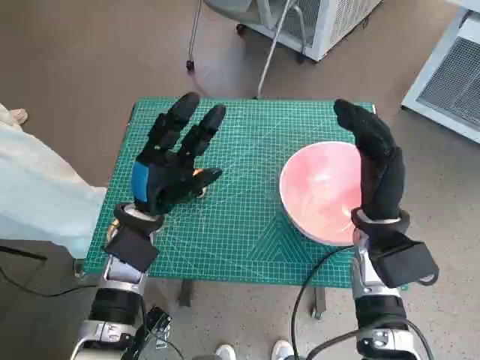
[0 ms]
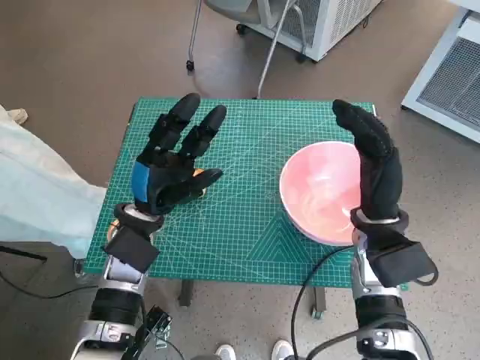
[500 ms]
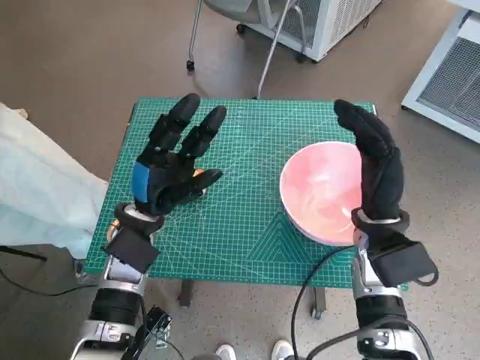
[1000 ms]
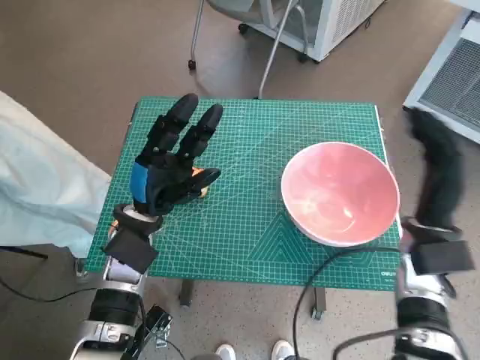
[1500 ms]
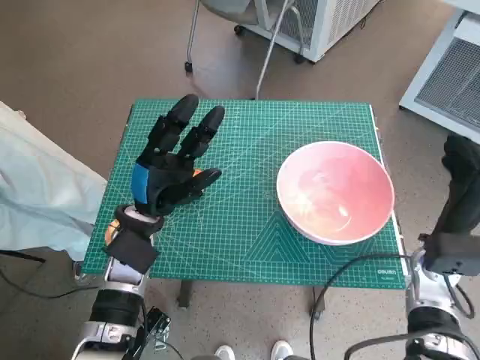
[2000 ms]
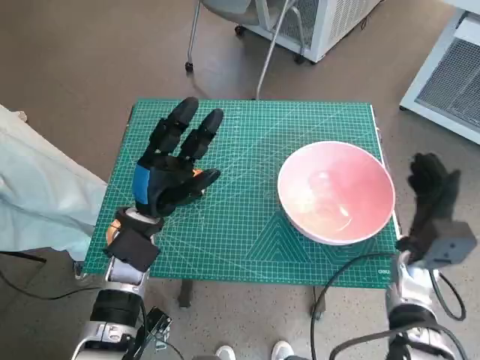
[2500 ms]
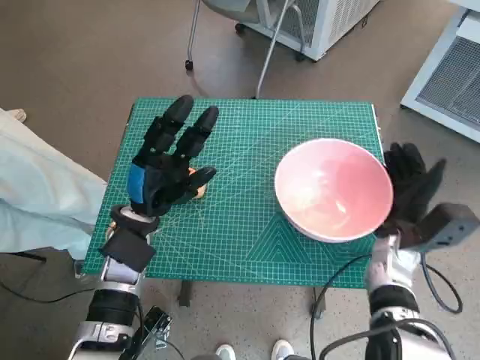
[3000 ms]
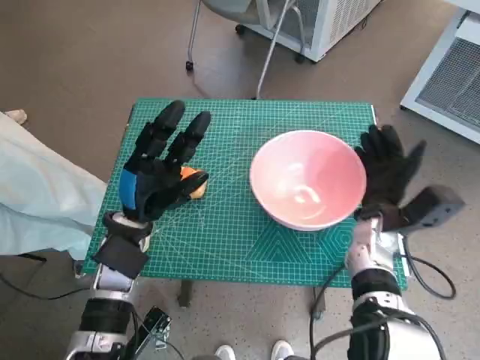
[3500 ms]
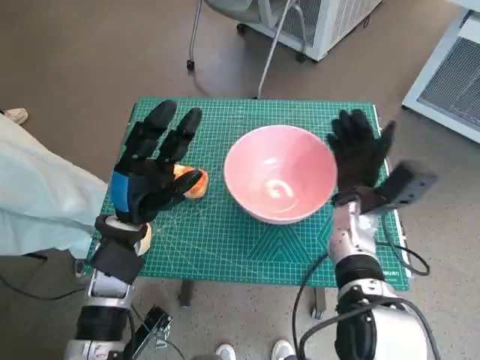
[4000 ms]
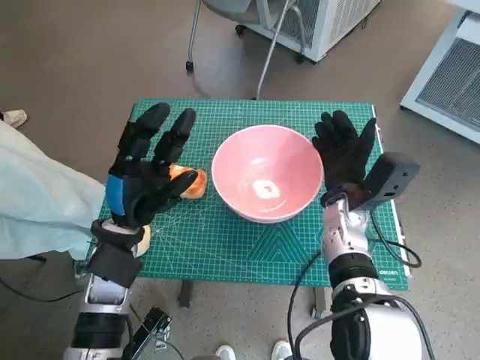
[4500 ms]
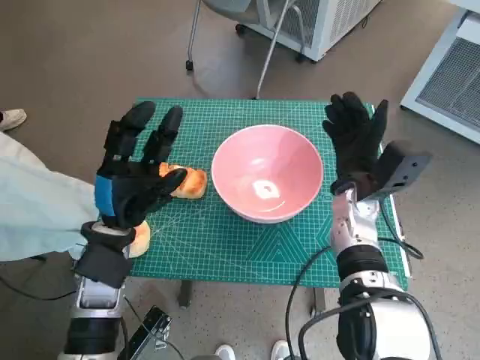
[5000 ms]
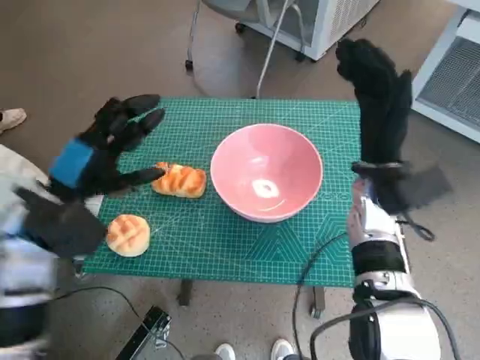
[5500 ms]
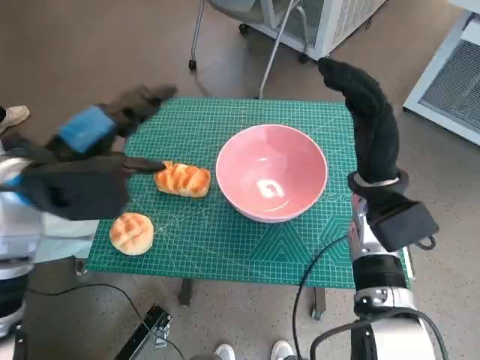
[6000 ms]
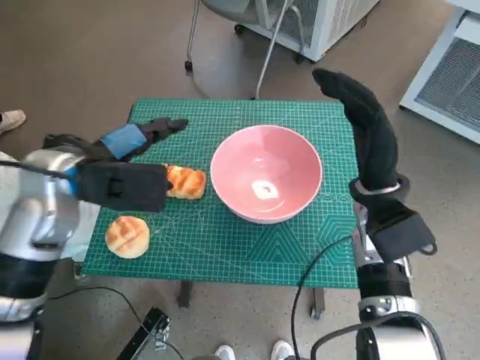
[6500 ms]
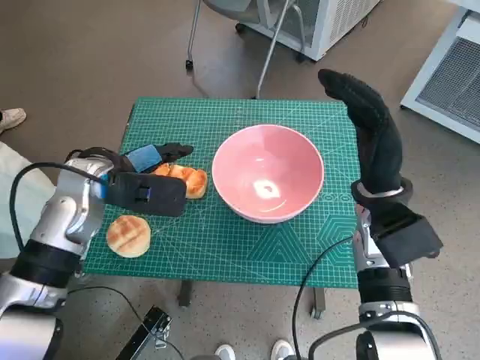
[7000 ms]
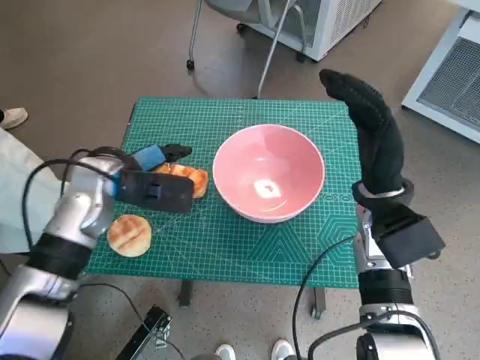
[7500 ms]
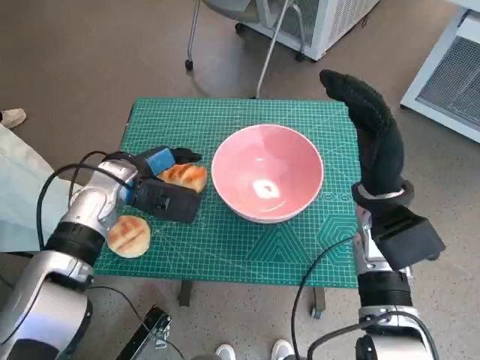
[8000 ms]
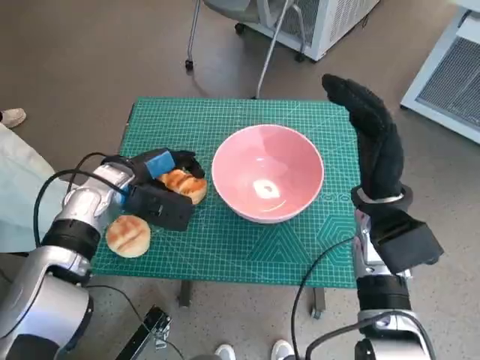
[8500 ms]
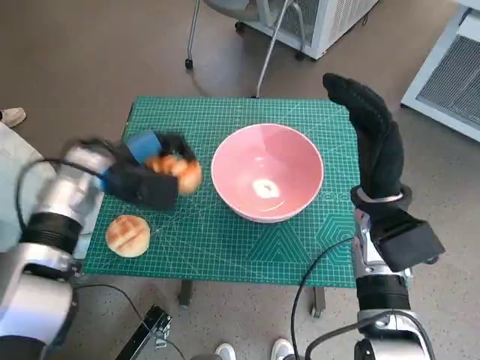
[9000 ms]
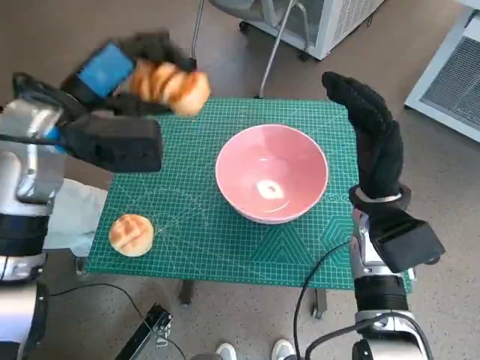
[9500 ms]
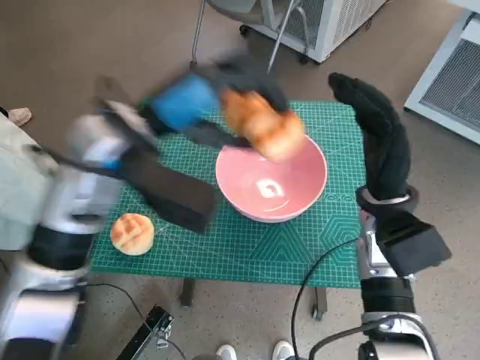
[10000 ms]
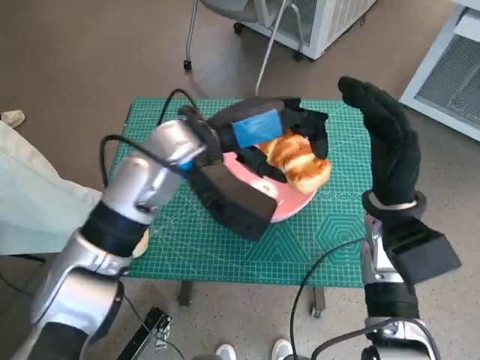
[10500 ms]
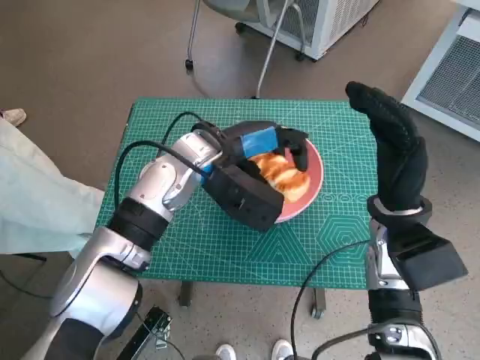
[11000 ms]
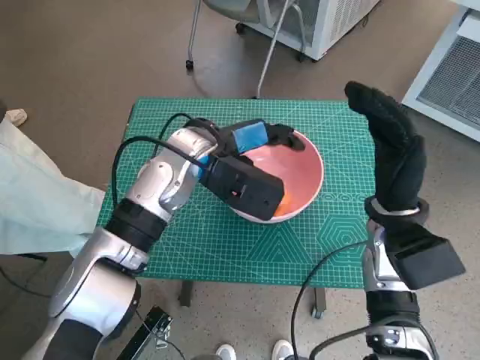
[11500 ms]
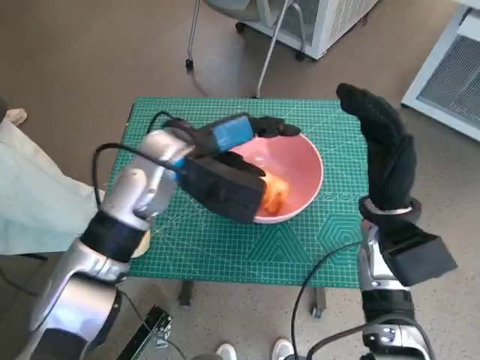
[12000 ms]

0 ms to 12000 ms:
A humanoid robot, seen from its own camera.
Task of the whole recording: Push the bowl to the center of the table and put the bread into the bowl.
Step, 0 ms to 5000 ms: Move the pink bowl to the center of table with right hand.
Step, 5500 ms to 8000 ms: Grasp the long bread with left hand.
Step, 8500 ms to 11500 ms: Place the long bread in pink bowl with left hand.
2000 ms to 4000 ms: The right hand moves to the left and forward, approximately 10 cm.
4000 ms to 6000 ms: The right hand shifts approximately 5 cm upward. The left hand is displaced upward by about 15 cm.
6000 ms to 8000 ms: The left hand heads downward and forward, covering about 15 cm.
8000 ms to 10000 ms: The left hand heads upward, covering roughly 15 cm.
10000 ms to 12000 ms: The left hand goes about 10 cm downward and to the right.

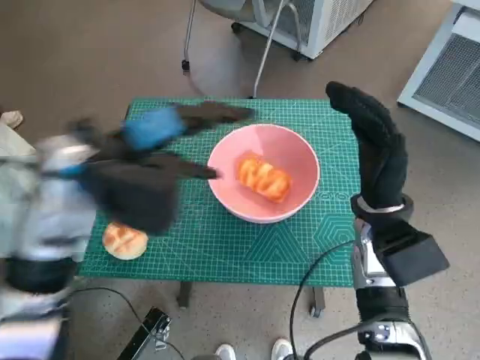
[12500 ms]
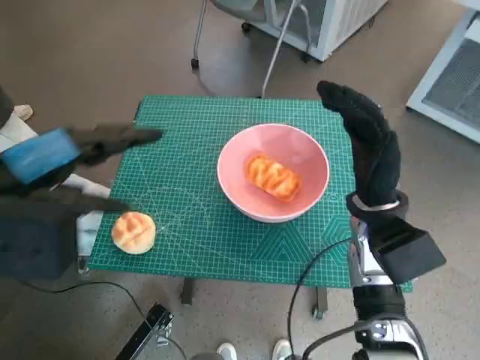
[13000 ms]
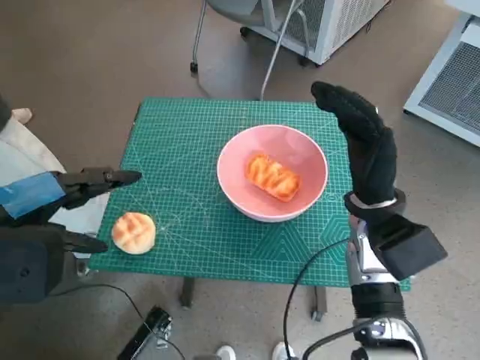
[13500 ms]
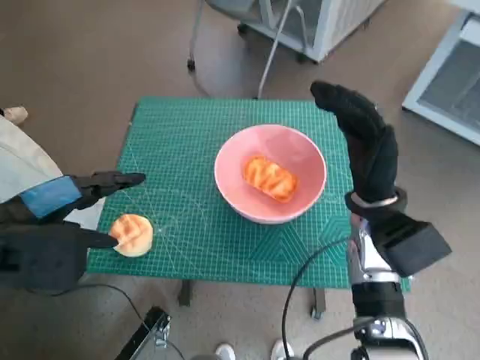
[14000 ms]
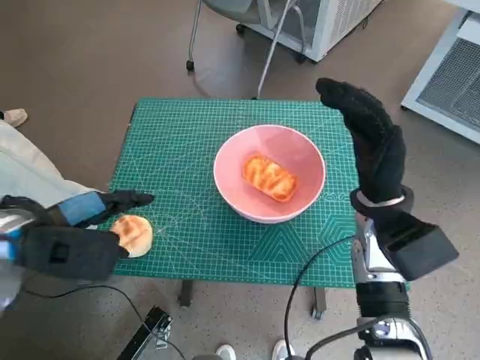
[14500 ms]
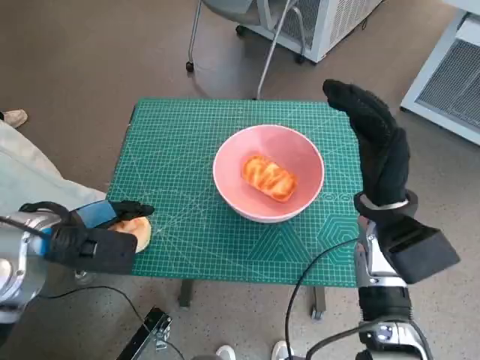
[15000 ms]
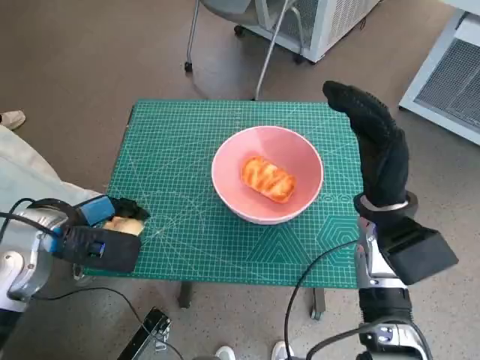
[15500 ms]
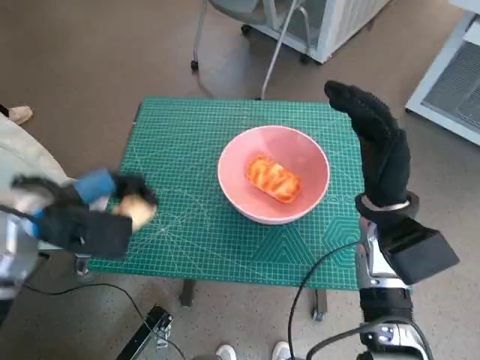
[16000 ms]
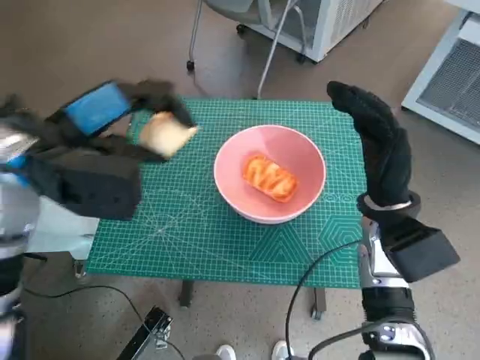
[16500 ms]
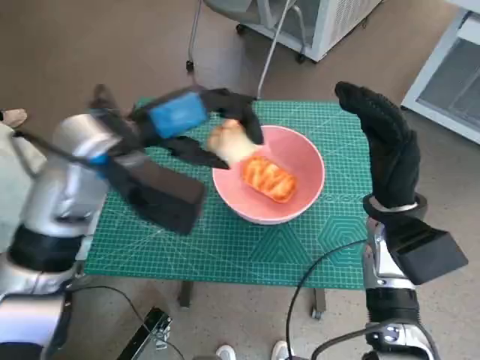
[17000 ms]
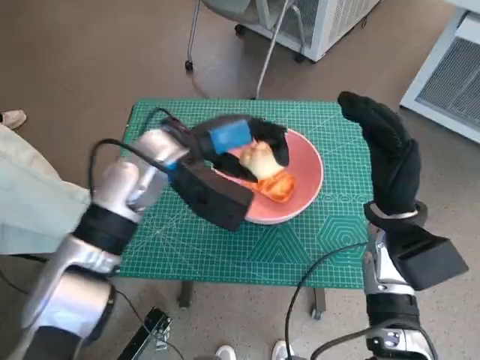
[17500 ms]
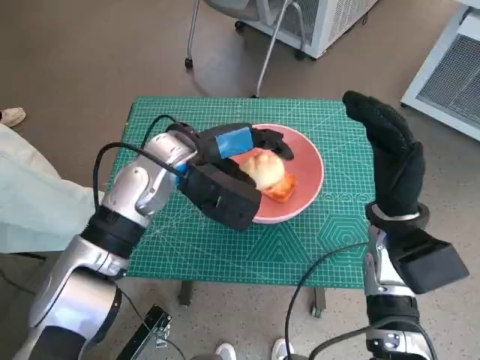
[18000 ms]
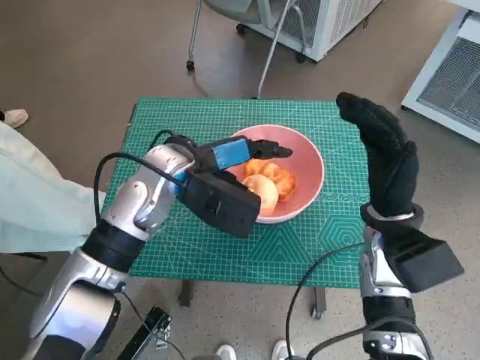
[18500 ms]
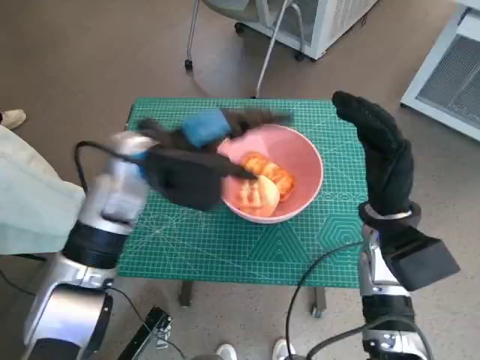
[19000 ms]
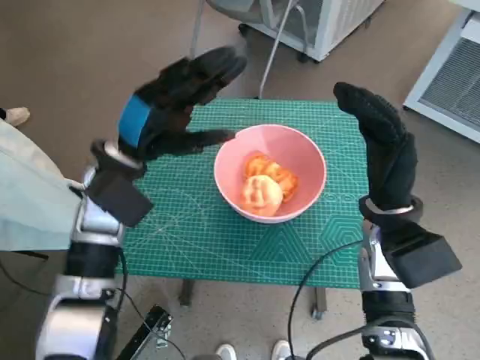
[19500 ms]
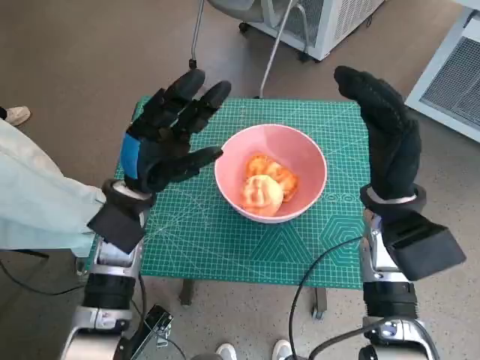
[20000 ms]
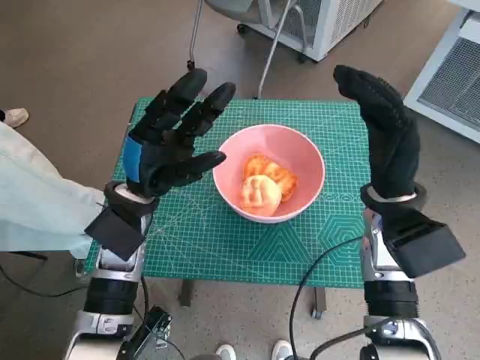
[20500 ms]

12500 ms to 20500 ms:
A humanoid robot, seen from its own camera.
Task of the whole recording: Push the bowl to the center of the table and put the bread into the bowl.
Step, 12500 ms to 15000 ms: Grasp the round bread with left hand.
Step, 15500 ms to 18500 ms: Place the round bread in pink bowl with left hand.
12500 ms to 14500 ms: The left hand is displaced to the left and backward by some 10 cm.
14500 ms to 16500 ms: The left hand shifts approximately 5 cm upward.
16500 ms to 18500 ms: The left hand heads to the right, downward and forward, covering about 15 cm.
18500 ms to 20500 ms: The left hand shifts about 5 cm to the left.

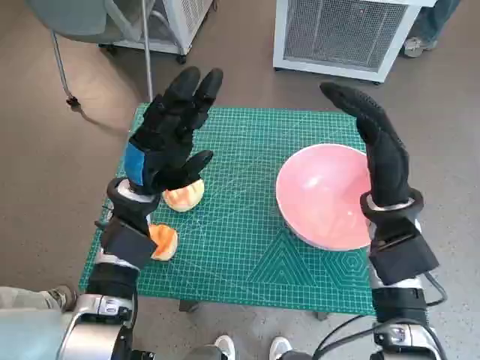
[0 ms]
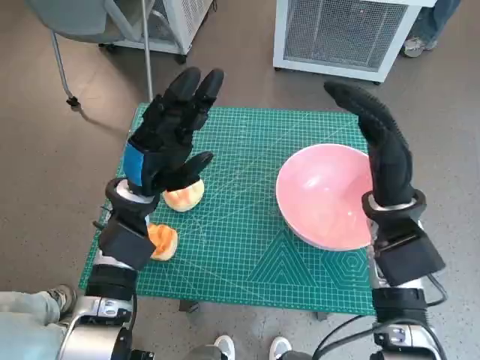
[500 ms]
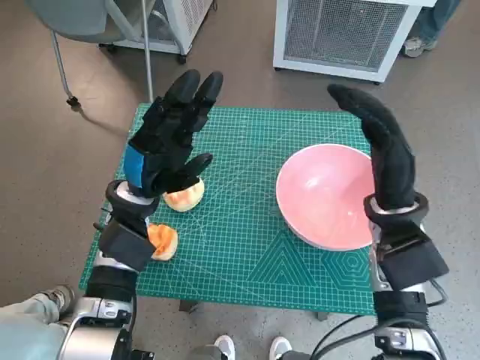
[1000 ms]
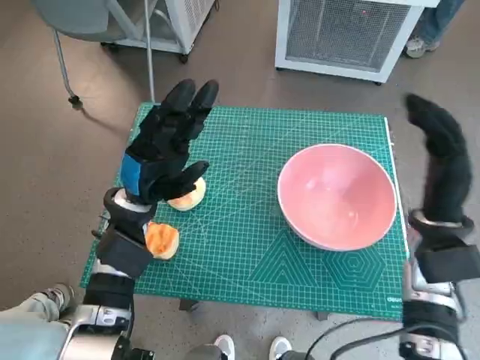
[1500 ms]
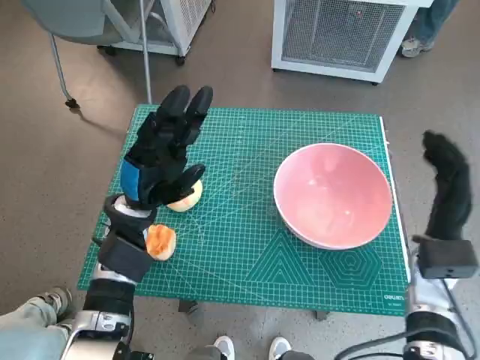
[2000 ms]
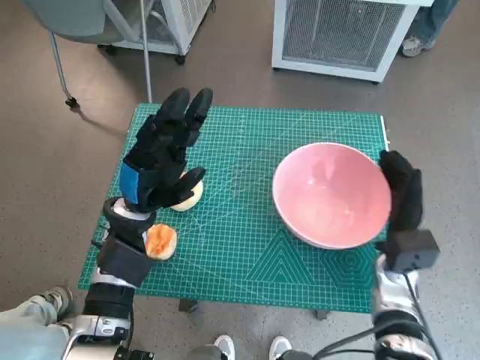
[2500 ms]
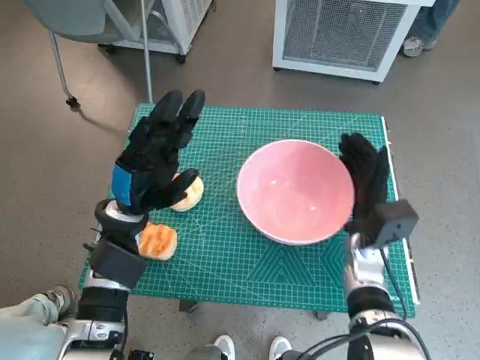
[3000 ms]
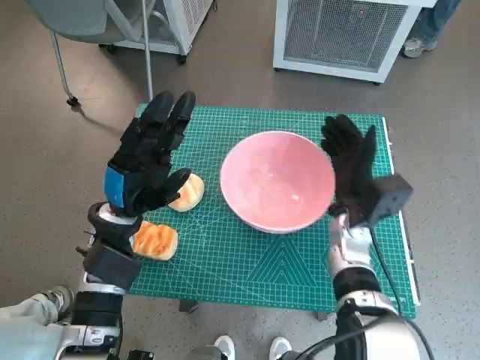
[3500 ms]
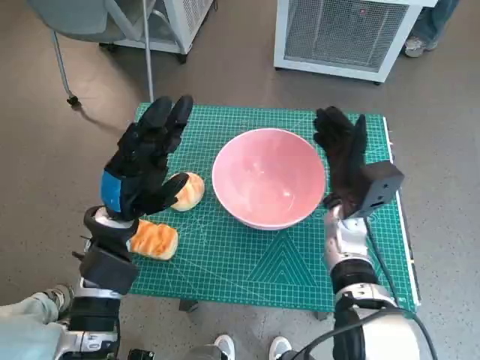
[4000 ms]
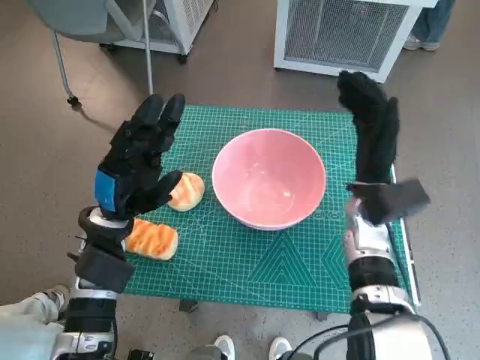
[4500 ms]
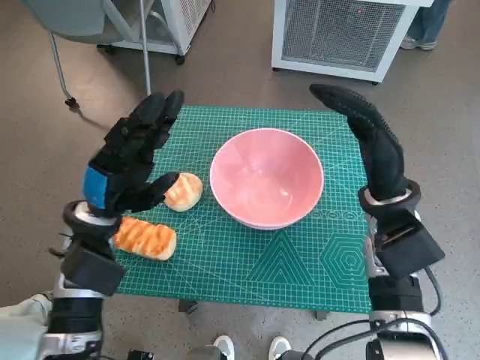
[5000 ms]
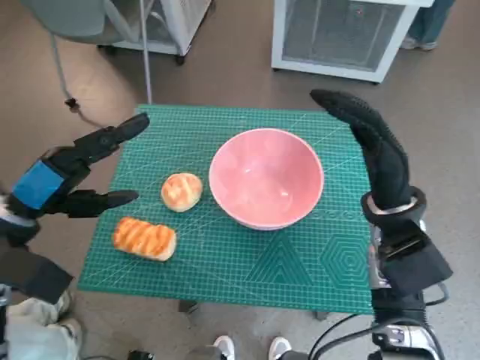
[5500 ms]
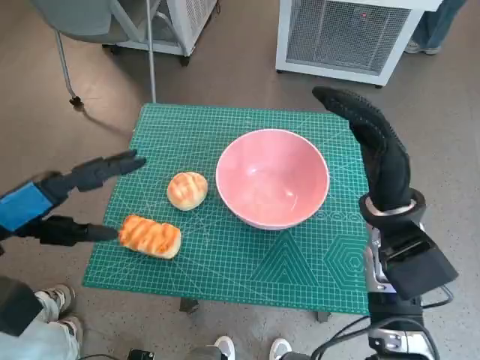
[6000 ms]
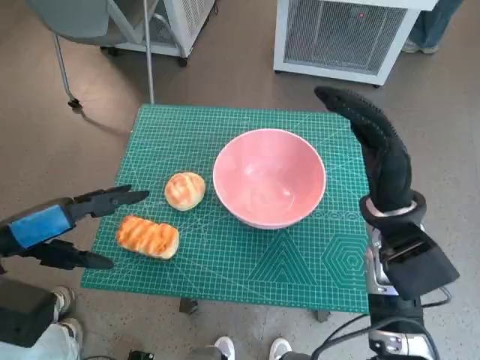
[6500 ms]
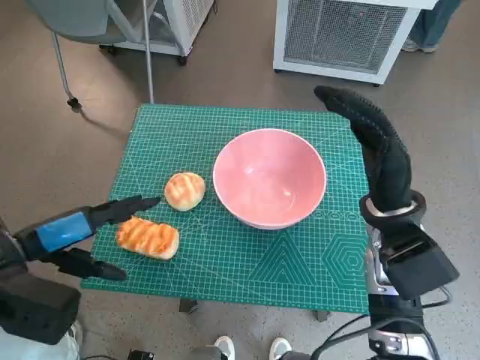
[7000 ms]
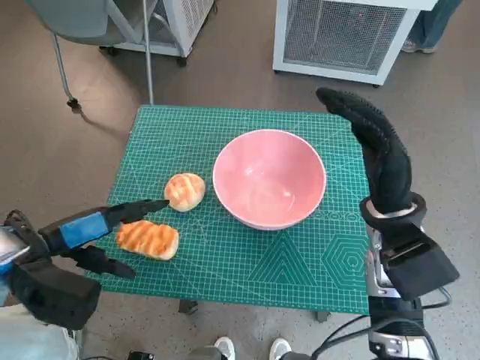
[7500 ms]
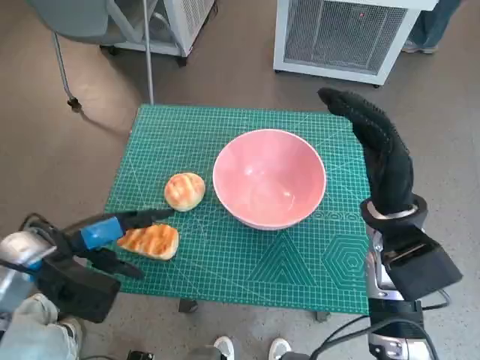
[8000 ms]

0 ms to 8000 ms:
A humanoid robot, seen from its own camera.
Task of the whole recording: Push the bowl to the center of the table and put the bread into the bowl.
Step, 0 ms to 4000 ms: Move the pink bowl to the center of table with right hand.
2000 ms to 4000 ms: The right hand shifts some 15 cm to the left and forward.
4000 ms to 6000 ms: The left hand is displaced to the left, upward and backward by approximately 15 cm. Meanwhile the right hand shifts some 10 cm upward.
6000 ms to 8000 ms: The left hand moves downward, roughly 5 cm.
